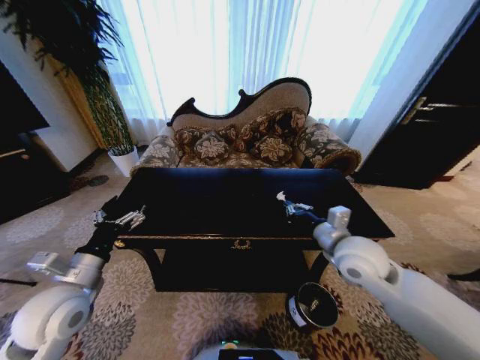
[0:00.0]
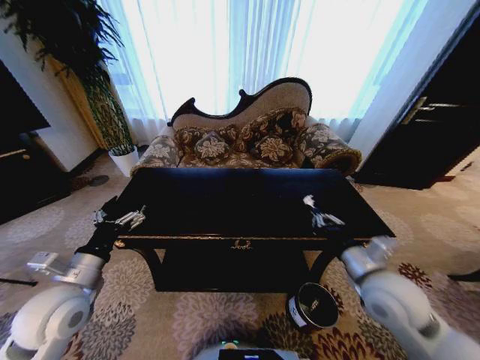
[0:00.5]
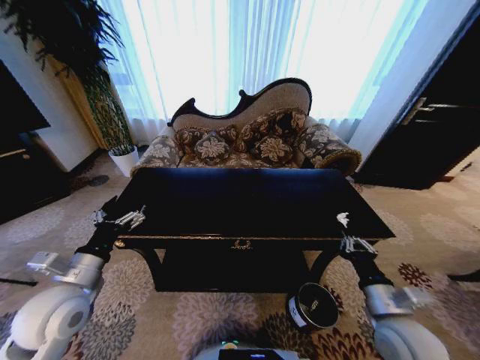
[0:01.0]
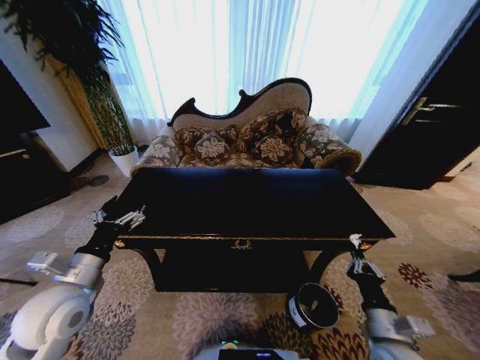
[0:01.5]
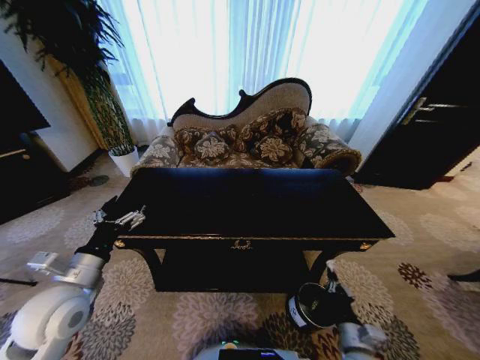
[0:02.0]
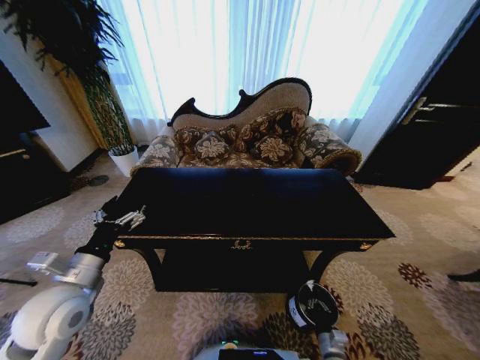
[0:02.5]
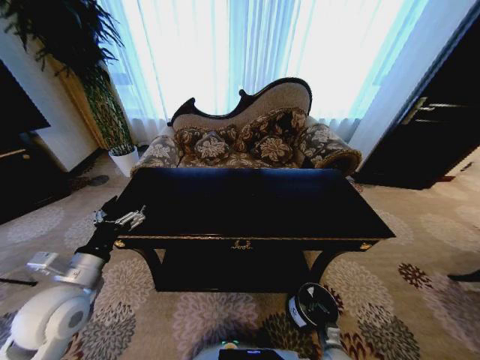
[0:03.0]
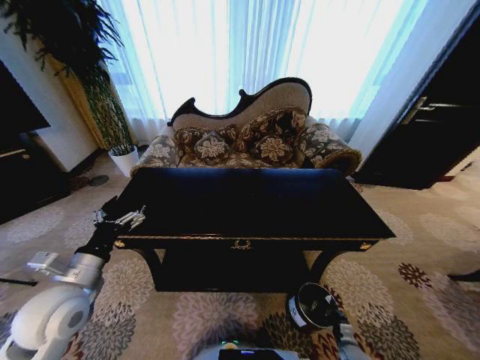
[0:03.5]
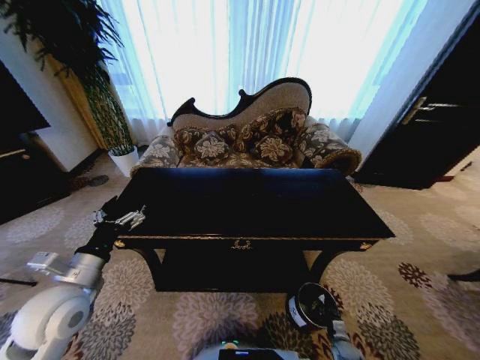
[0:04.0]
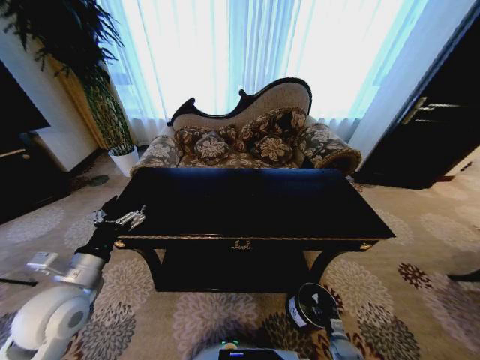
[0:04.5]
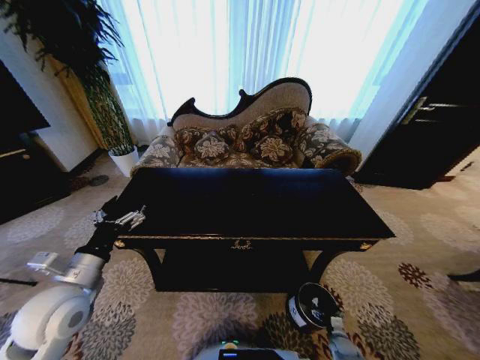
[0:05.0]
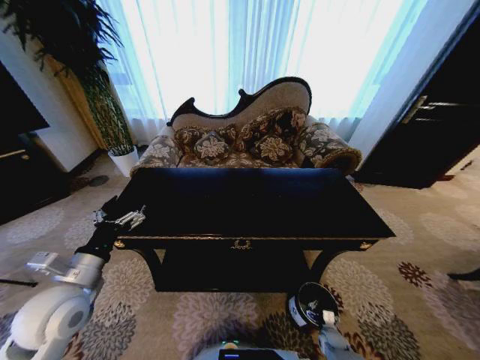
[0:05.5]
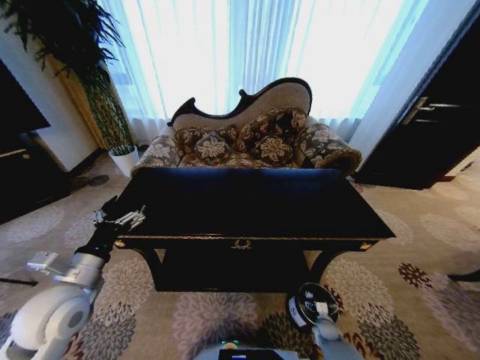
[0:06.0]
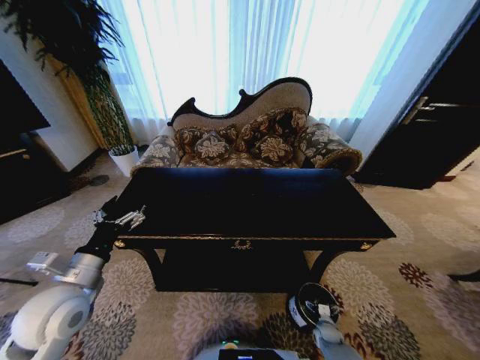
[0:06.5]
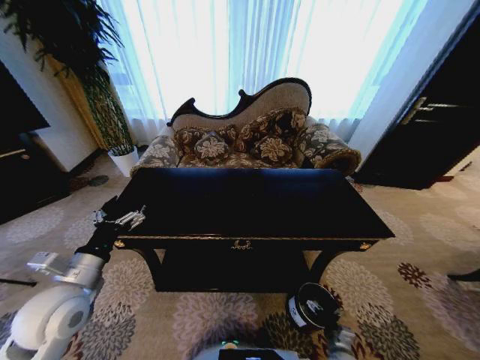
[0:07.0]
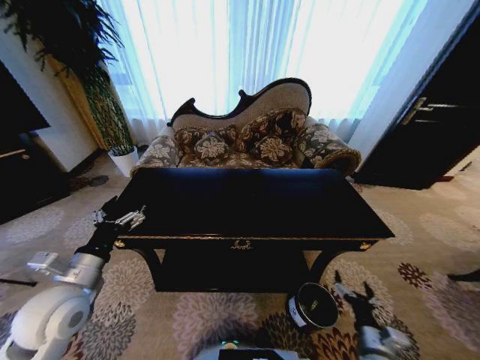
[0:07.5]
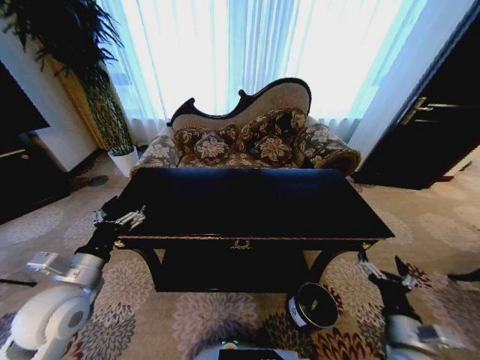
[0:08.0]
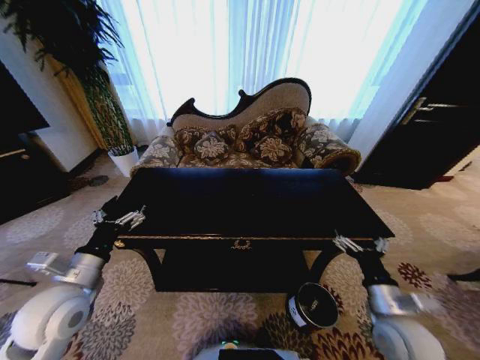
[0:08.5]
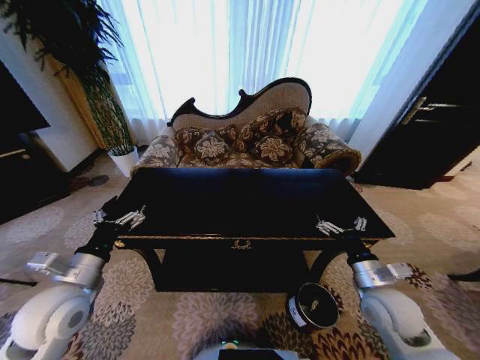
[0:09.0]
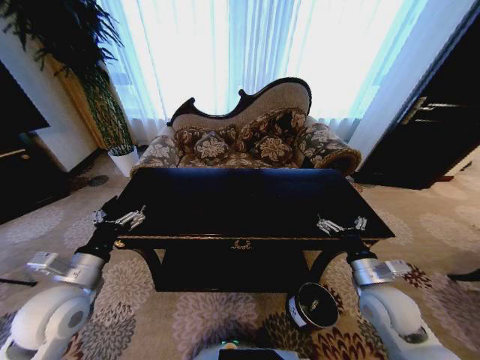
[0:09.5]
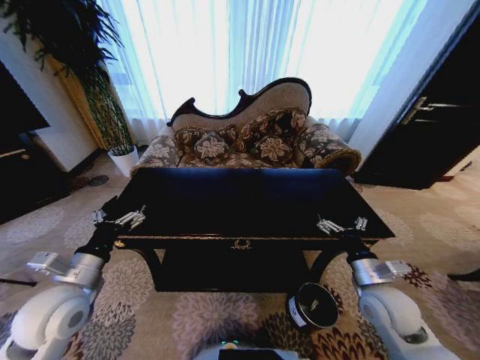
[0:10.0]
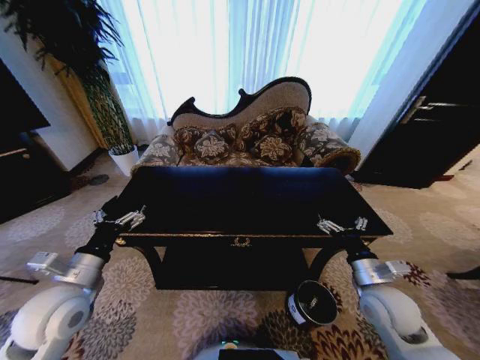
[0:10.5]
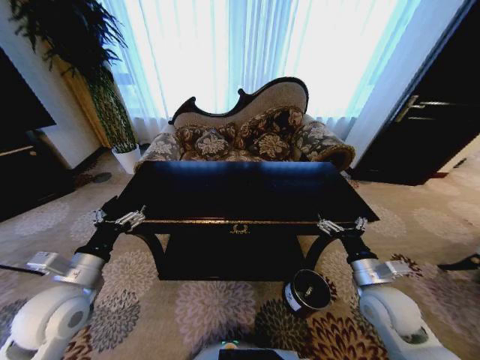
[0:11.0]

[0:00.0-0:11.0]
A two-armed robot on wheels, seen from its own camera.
Task of the whole recording: Move to the front of the table and place the trash on the table into the trash bin.
0:00.0 to 0:02.0: The right gripper travels downward and backward by approximately 30 cm.
0:02.0 to 0:03.5: The right gripper moves downward and to the right, roughly 25 cm.
0:03.5 to 0:05.5: The right gripper is displaced to the left and forward by roughly 10 cm, and opens.
0:05.5 to 0:07.5: The right gripper moves upward, roughly 25 cm.
0:07.5 to 0:09.0: The right gripper travels upward and forward by some 20 cm.
0:09.0 to 0:11.0: The two grippers keep their place.

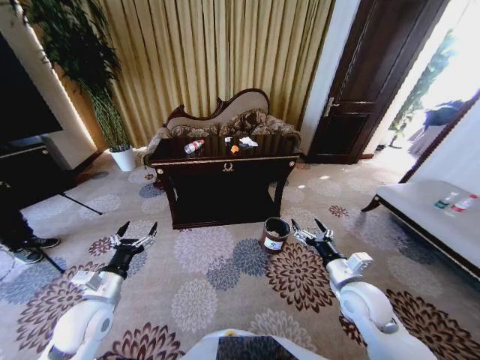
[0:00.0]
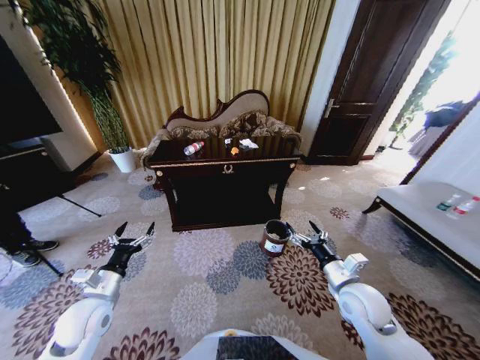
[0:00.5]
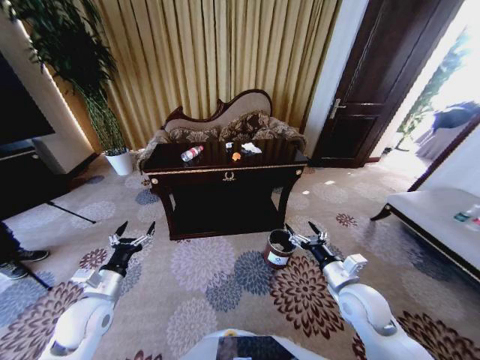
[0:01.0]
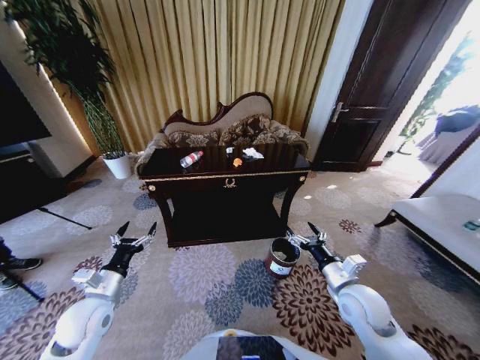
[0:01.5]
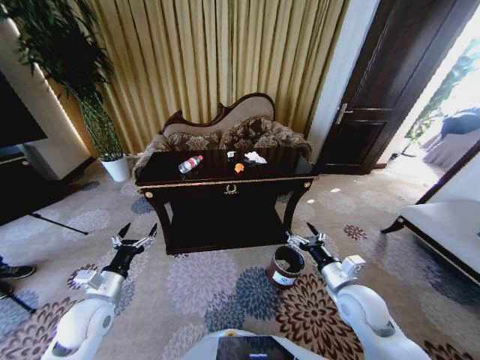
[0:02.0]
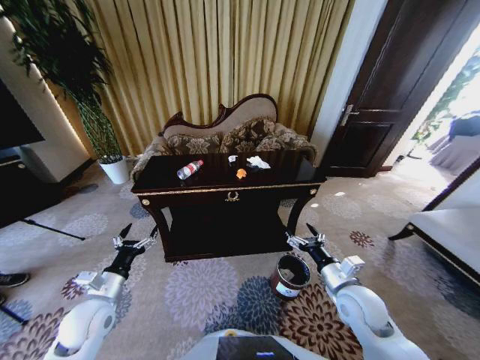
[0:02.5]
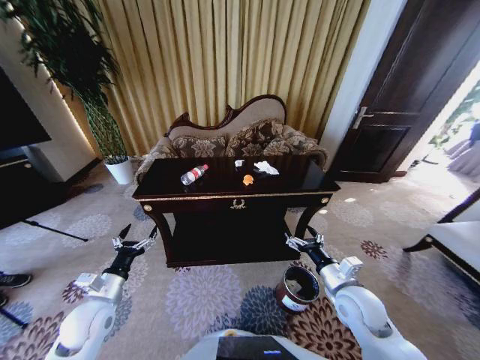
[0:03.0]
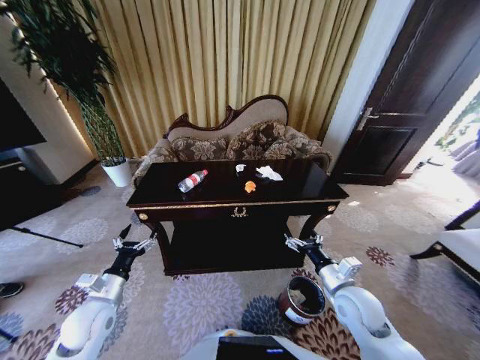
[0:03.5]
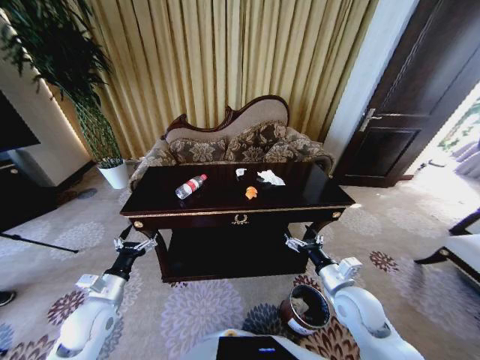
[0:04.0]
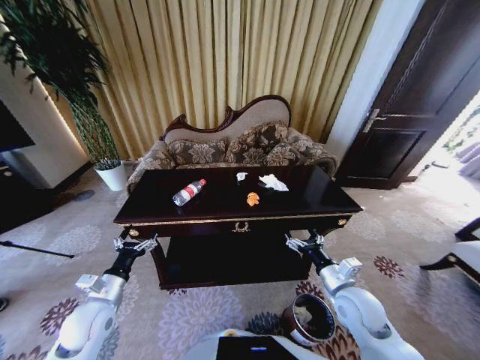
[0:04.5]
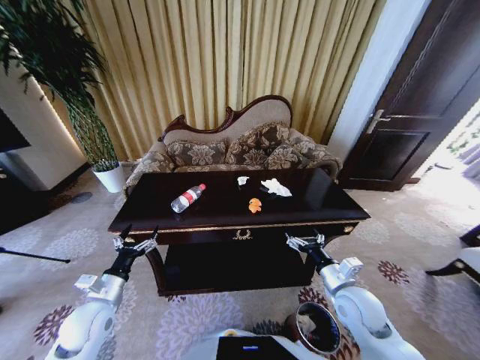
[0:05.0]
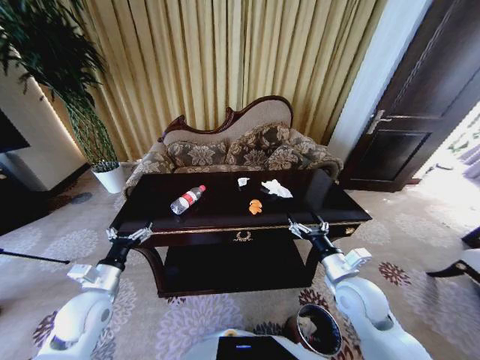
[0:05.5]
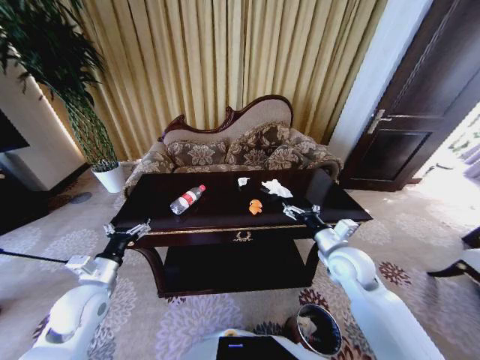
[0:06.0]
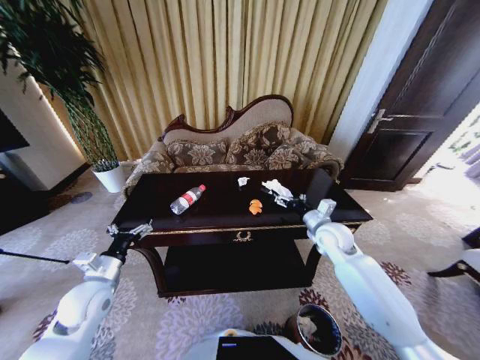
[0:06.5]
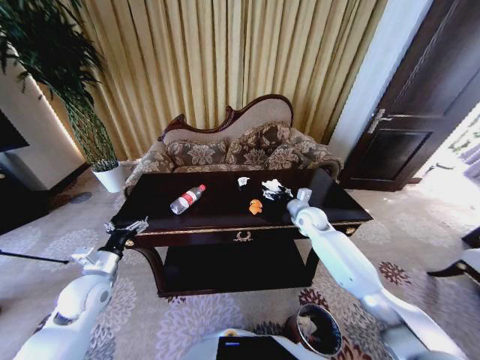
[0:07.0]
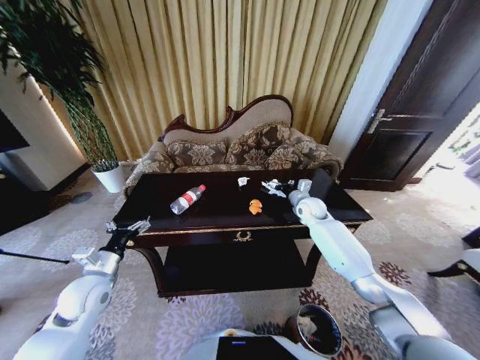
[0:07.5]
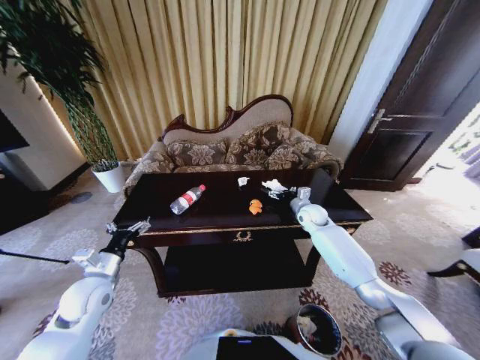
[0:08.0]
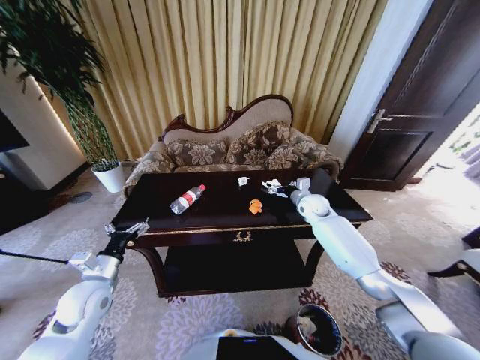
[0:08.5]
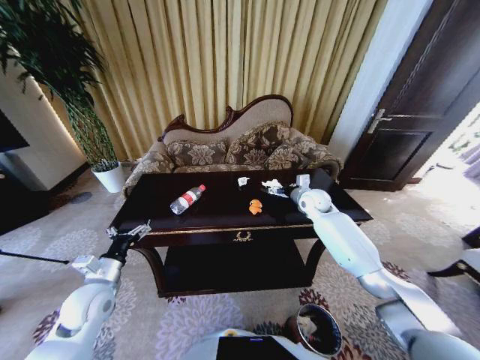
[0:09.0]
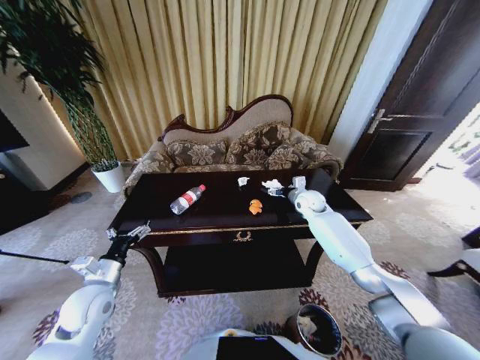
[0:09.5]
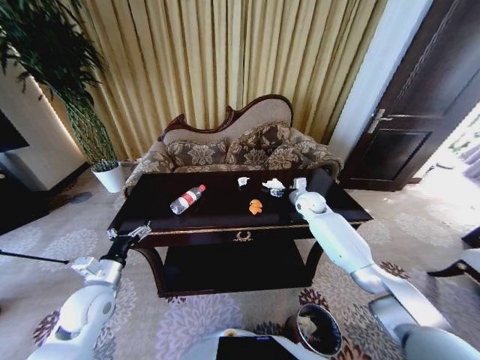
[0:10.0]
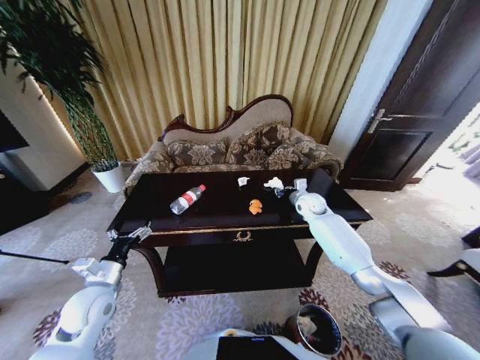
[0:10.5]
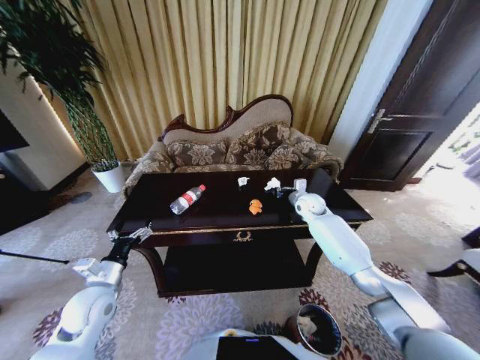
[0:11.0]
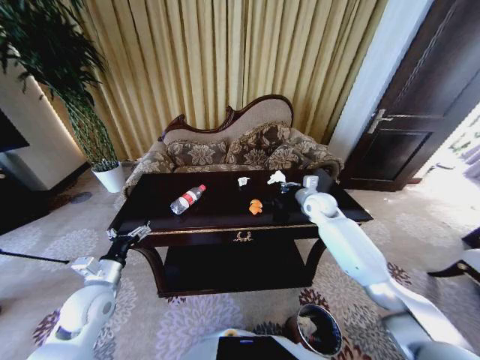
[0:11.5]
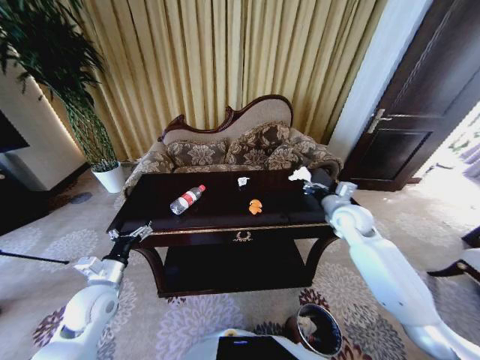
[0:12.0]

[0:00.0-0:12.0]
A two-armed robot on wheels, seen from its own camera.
Task of the whole recording: Move to the front of the table and place the trash on the table into the trash bin.
0:04.0 to 0:06.0: The left gripper shifts about 5 cm upward, while the right gripper moves forward and upward, about 10 cm.
0:06.0 to 0:08.0: The right gripper moves forward, some 20 cm.
0:10.0 to 0:12.0: The right gripper travels backward, upward and to the right by approximately 15 cm, and closes up.

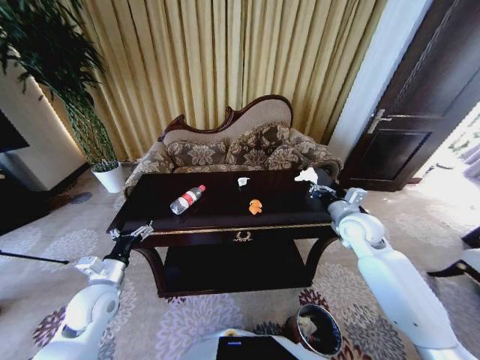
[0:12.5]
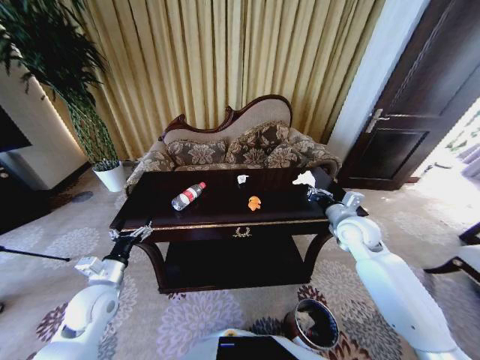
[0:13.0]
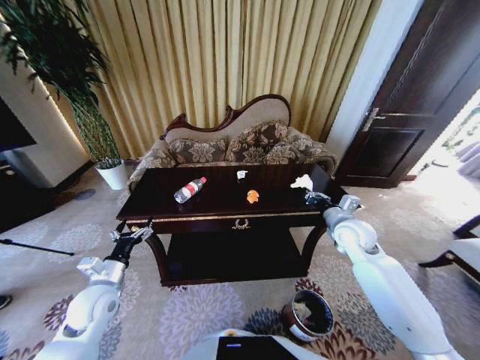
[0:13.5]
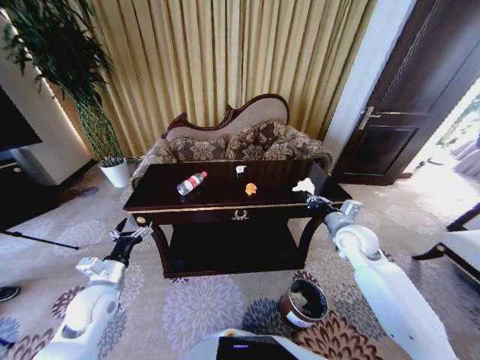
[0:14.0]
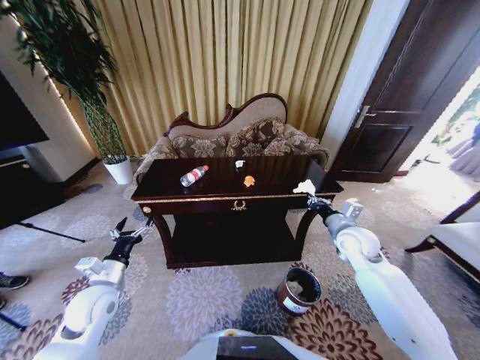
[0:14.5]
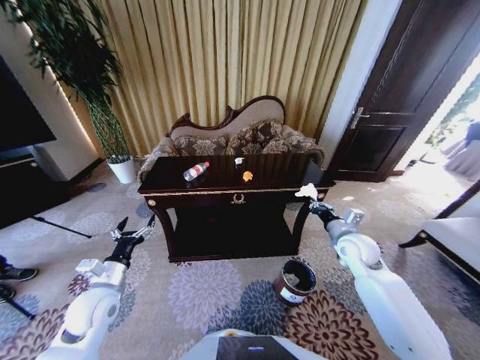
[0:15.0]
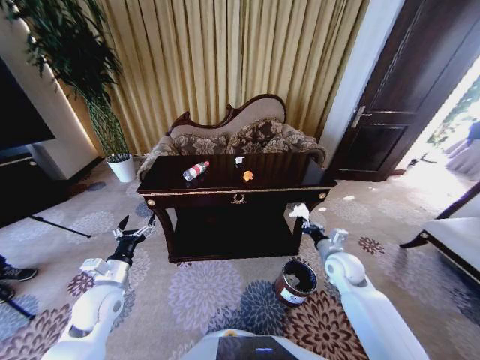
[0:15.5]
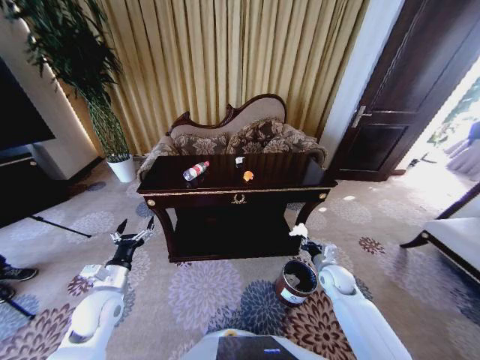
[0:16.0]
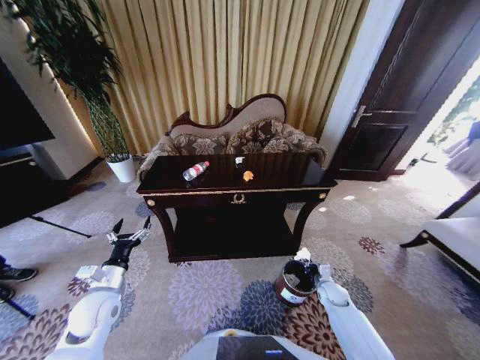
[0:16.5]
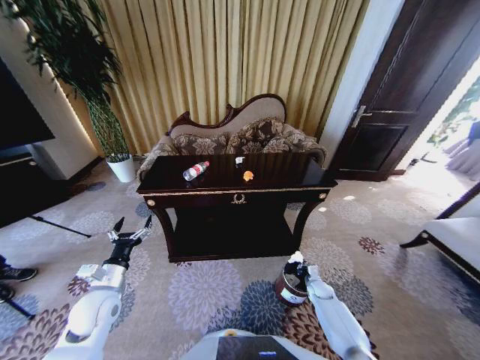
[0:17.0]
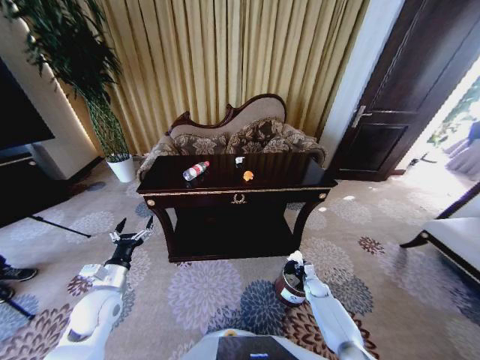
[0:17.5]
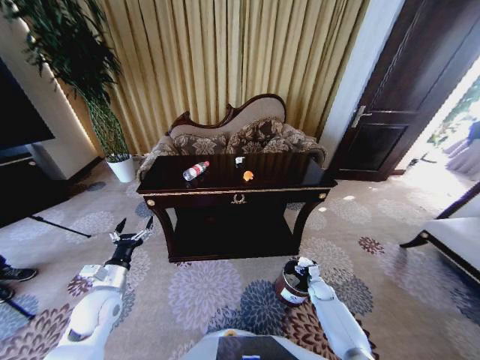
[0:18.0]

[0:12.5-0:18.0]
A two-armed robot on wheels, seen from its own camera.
Task of the whole recording: Move to the front of the table and place the trash on the table into the trash bin.
0:14.5 to 0:16.0: The right gripper shifts some 15 cm downward.
0:16.0 to 0:18.0: The right gripper travels downward by roughly 20 cm, and opens its fingers.
